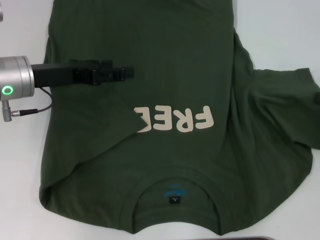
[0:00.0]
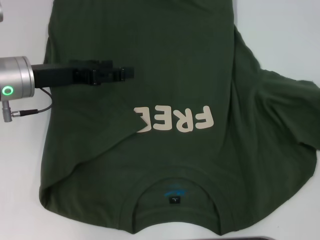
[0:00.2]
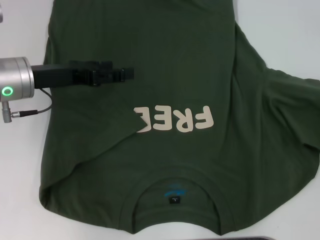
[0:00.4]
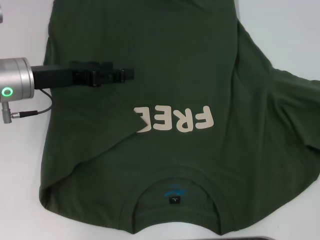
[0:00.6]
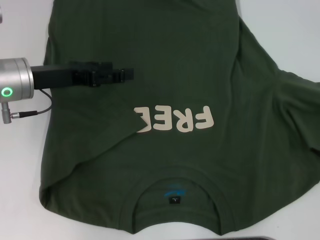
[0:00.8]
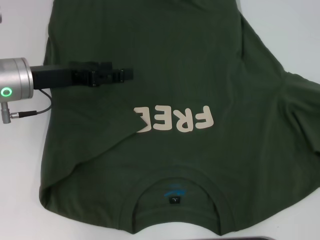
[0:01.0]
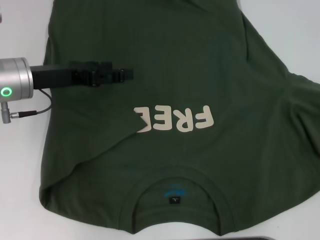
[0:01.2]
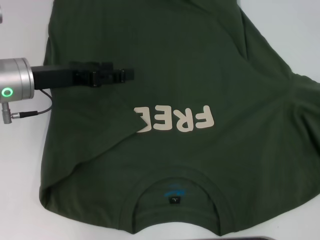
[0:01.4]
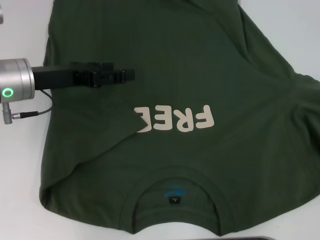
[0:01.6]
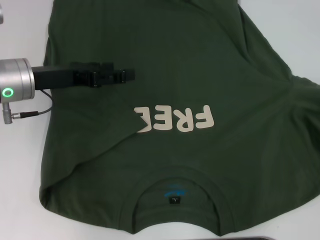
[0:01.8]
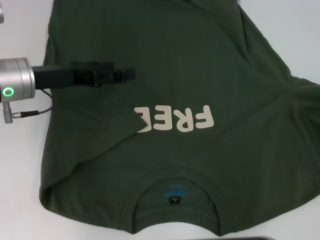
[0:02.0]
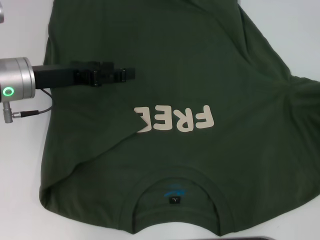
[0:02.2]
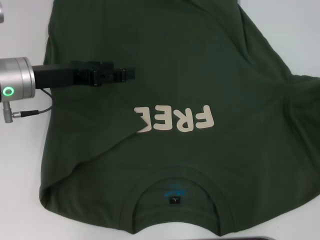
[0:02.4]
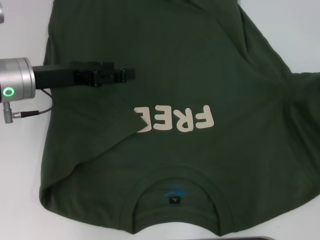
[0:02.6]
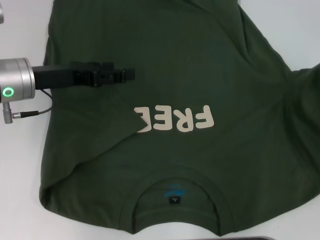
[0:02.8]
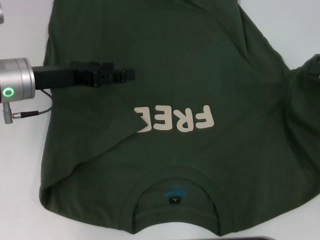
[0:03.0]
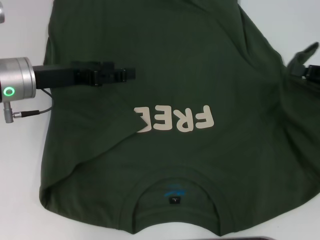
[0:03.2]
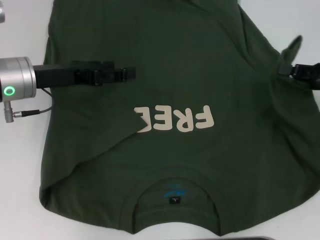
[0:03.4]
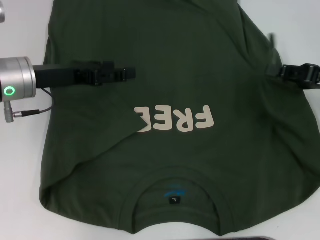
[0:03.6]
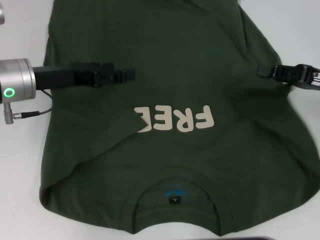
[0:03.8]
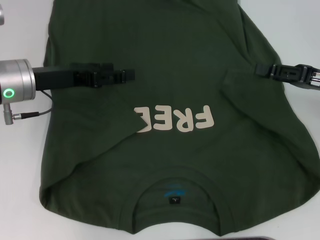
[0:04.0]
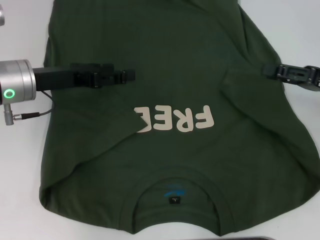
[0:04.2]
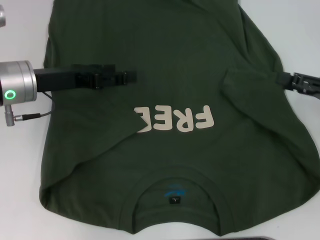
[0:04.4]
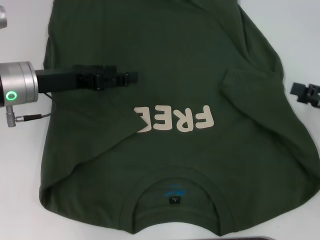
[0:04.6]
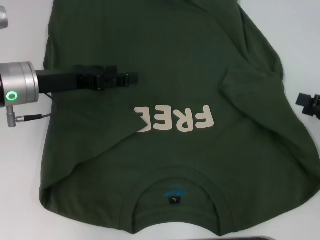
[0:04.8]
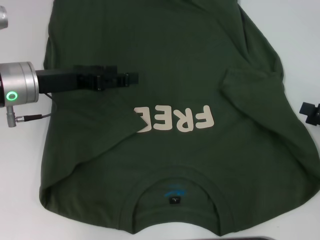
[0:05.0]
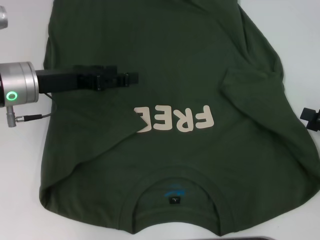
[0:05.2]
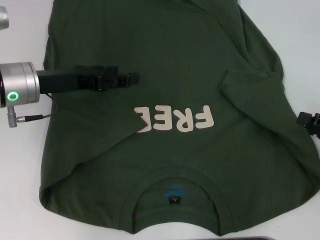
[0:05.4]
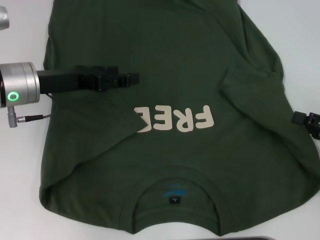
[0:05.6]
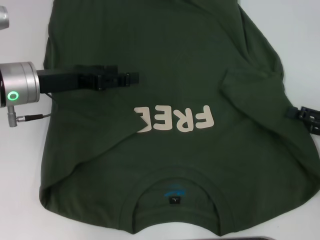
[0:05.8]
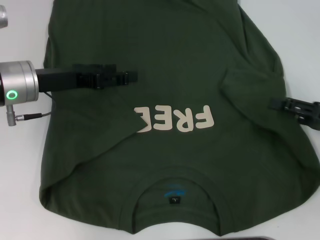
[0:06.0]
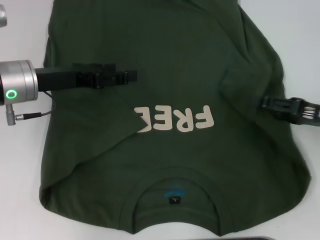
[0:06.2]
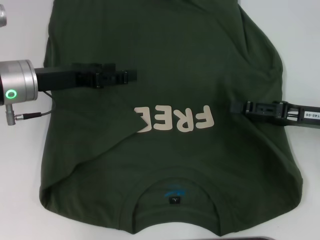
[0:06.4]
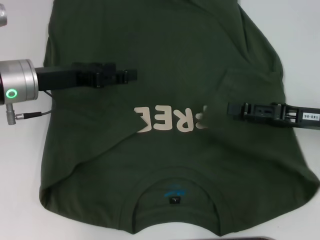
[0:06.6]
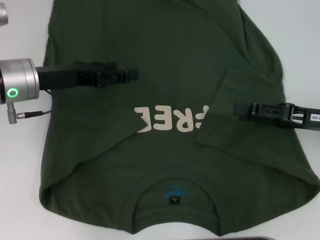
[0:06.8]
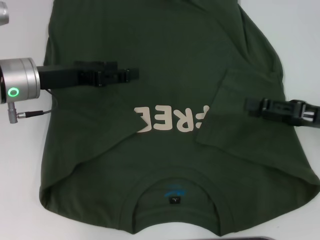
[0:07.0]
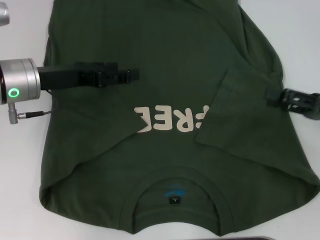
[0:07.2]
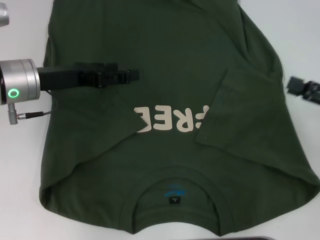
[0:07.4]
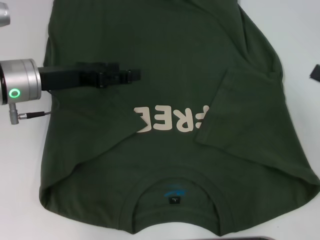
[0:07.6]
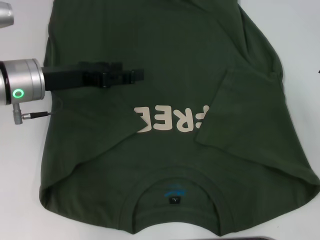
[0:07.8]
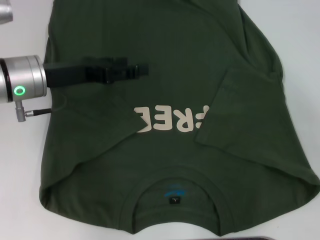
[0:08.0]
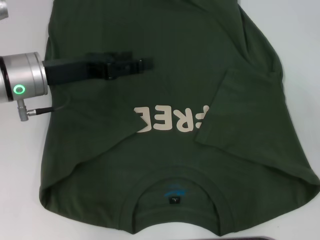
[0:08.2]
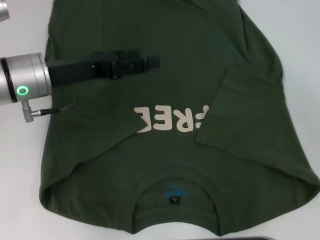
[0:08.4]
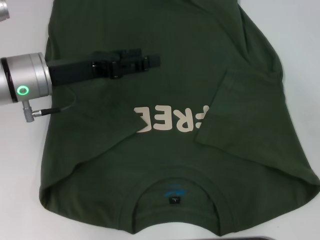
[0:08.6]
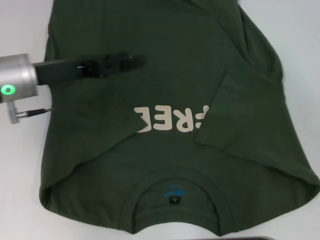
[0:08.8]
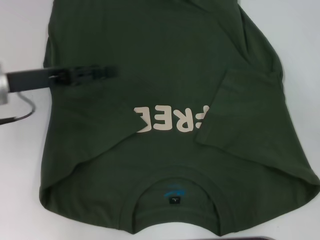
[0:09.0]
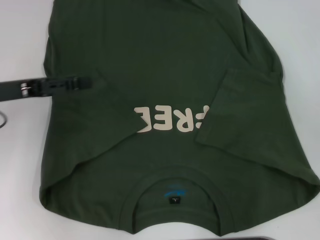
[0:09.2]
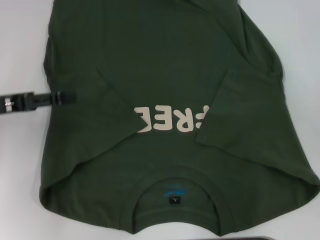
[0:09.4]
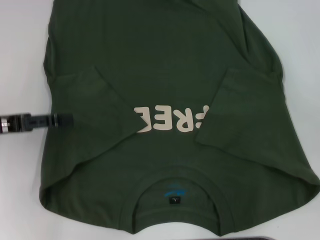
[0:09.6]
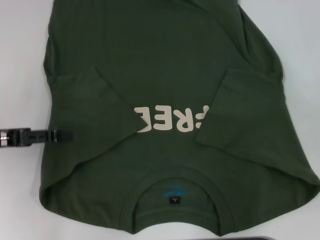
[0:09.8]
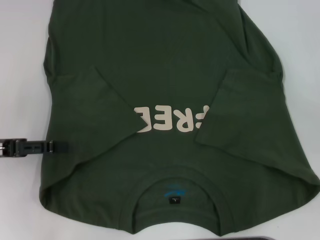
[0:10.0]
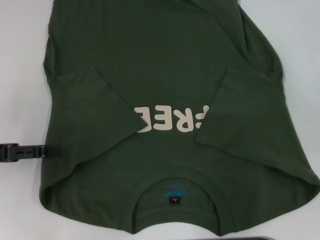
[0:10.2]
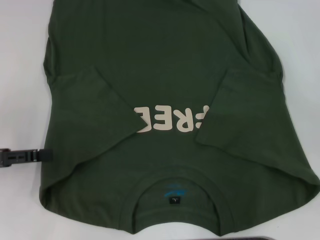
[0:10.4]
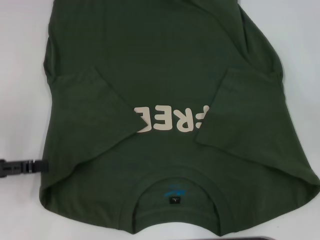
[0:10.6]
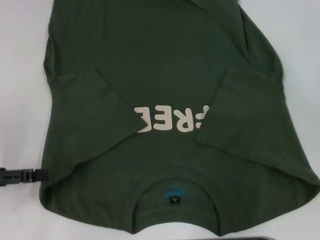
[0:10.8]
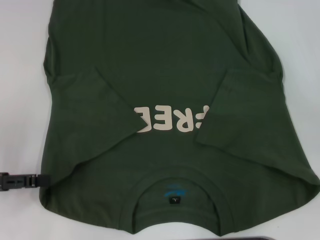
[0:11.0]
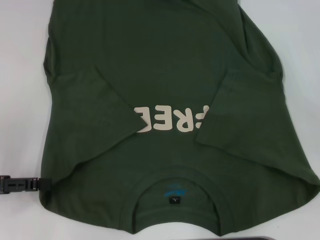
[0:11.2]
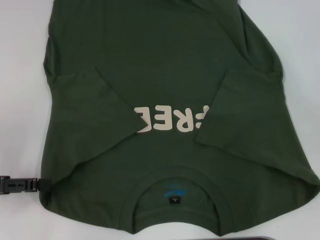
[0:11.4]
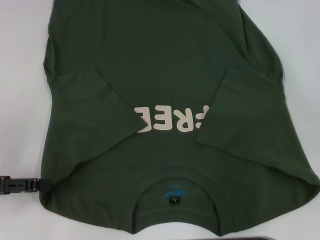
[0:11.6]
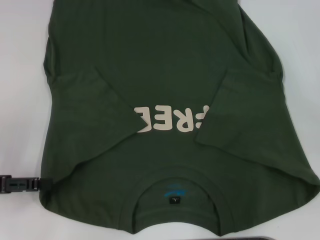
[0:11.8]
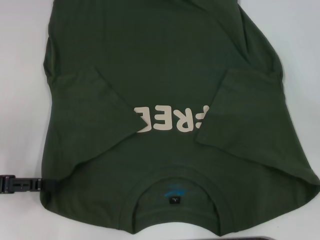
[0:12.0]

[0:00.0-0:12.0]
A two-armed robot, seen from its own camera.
Step, 0:00.0 to 0:06.6: Fold the bottom right sleeve with your right hand.
0:00.0 to 0:01.6: The right gripper shifts by some 5 cm.
0:01.6 to 0:03.0: The right gripper travels to the left and forward by roughly 10 cm.
0:03.0 to 0:04.4: The right gripper opens up.
0:06.0 to 0:07.6: The right gripper travels to the left and back again, about 5 cm each way.
0:07.6 to 0:09.0: The grippers move only a little.
0:09.0 to 0:10.4: The left gripper heads to the left and backward, covering some 15 cm.
0:10.4 to 0:12.0: The grippers move only a little.

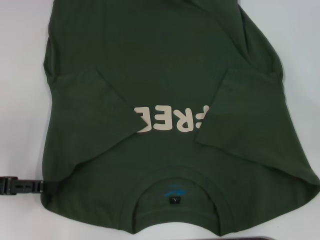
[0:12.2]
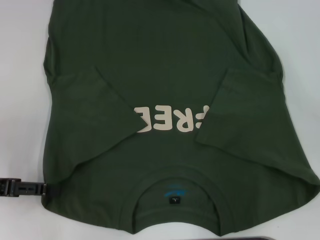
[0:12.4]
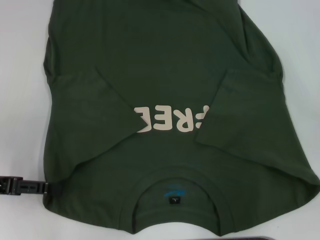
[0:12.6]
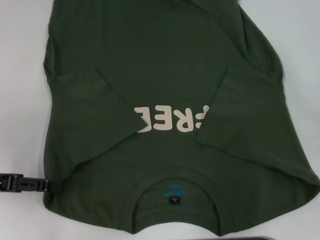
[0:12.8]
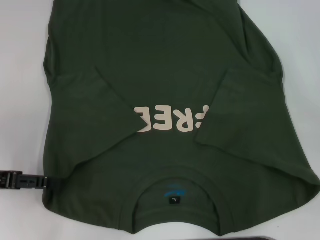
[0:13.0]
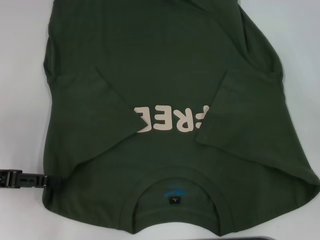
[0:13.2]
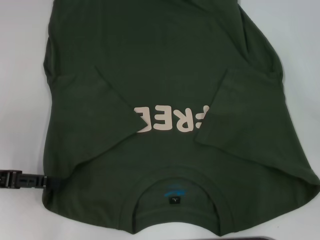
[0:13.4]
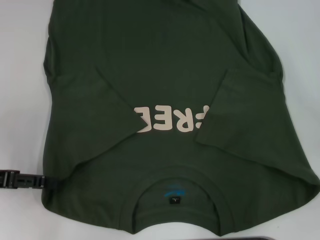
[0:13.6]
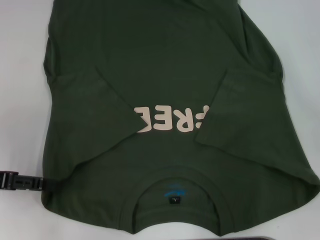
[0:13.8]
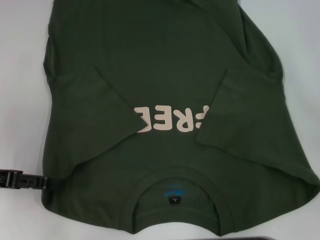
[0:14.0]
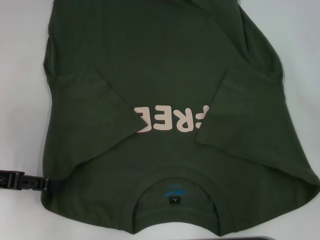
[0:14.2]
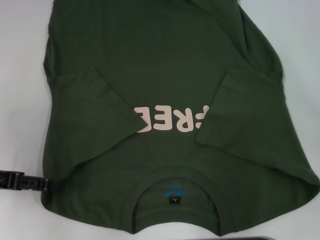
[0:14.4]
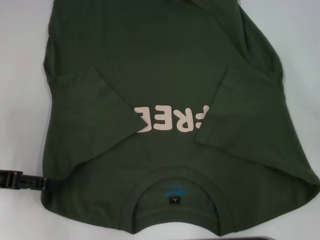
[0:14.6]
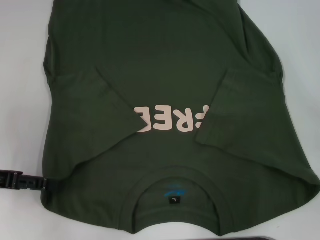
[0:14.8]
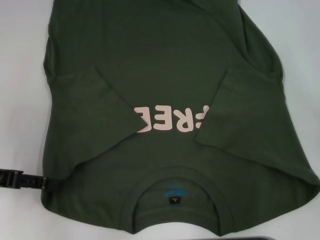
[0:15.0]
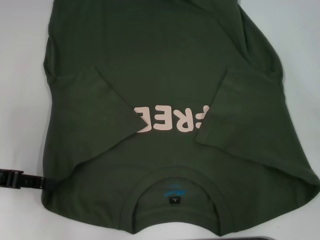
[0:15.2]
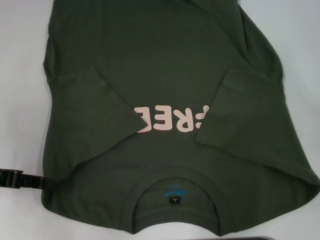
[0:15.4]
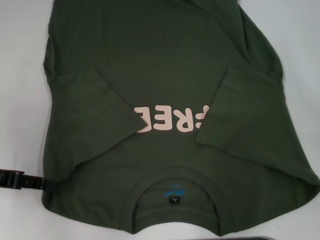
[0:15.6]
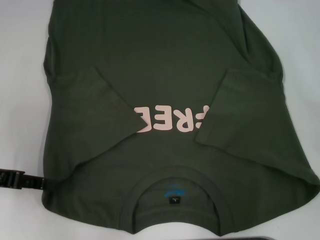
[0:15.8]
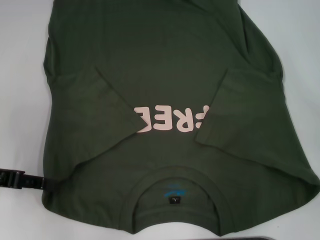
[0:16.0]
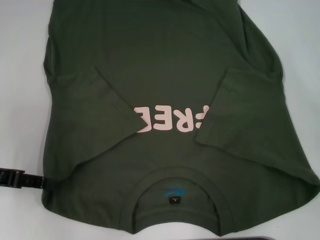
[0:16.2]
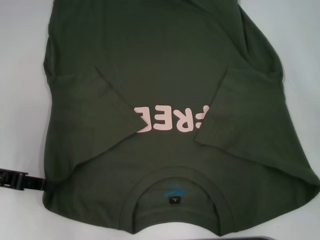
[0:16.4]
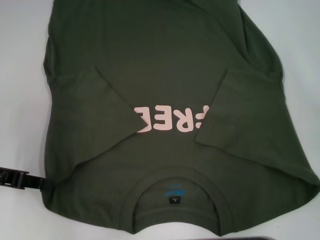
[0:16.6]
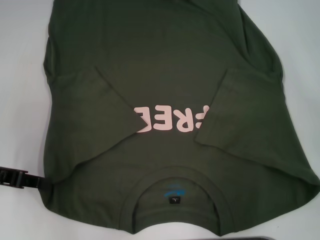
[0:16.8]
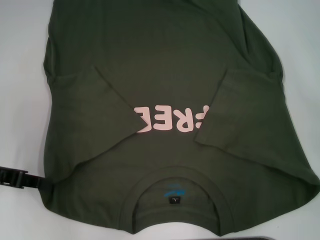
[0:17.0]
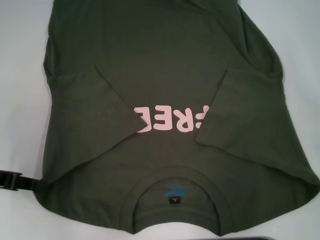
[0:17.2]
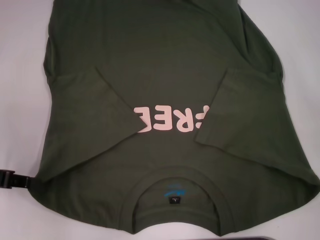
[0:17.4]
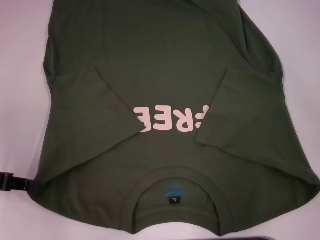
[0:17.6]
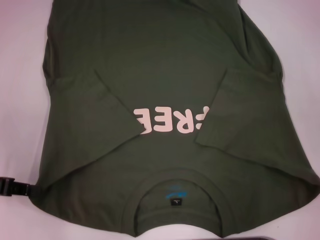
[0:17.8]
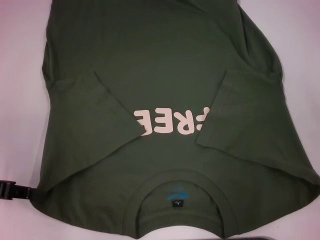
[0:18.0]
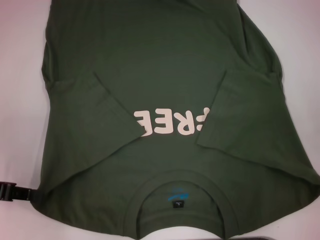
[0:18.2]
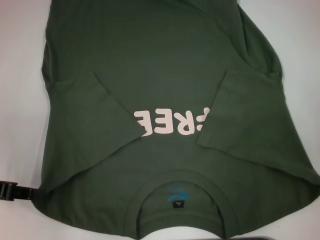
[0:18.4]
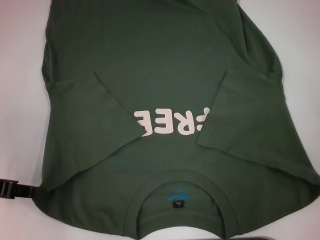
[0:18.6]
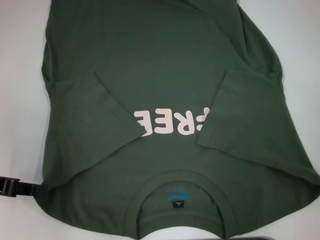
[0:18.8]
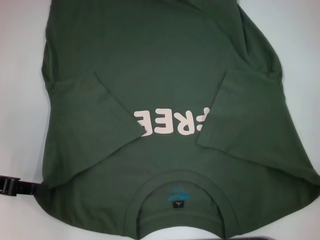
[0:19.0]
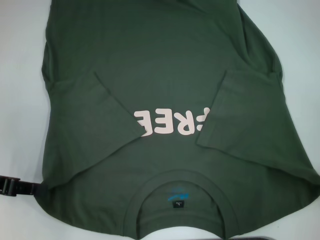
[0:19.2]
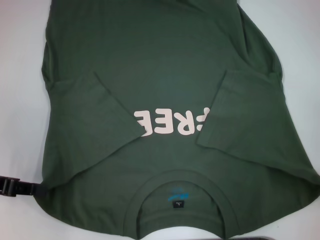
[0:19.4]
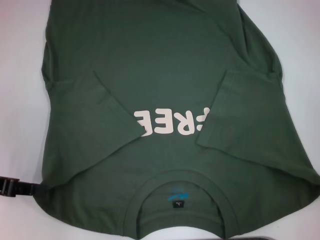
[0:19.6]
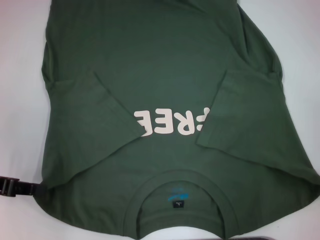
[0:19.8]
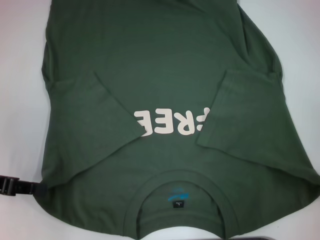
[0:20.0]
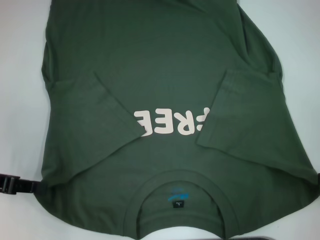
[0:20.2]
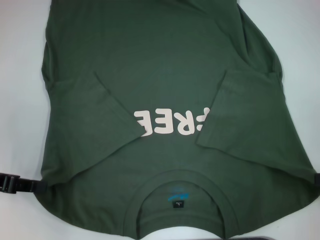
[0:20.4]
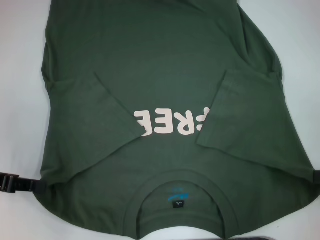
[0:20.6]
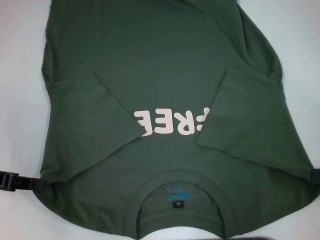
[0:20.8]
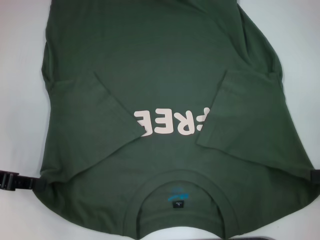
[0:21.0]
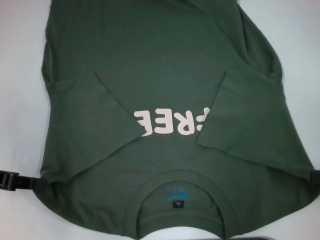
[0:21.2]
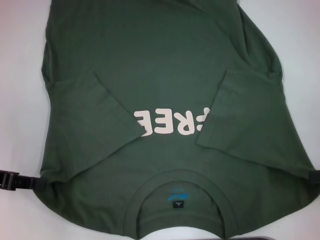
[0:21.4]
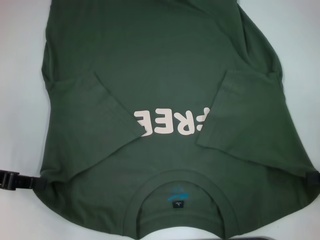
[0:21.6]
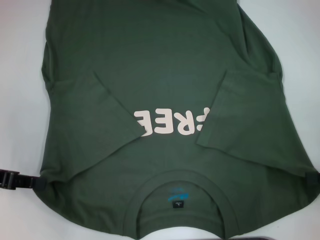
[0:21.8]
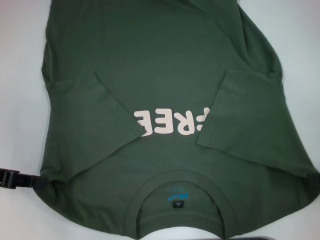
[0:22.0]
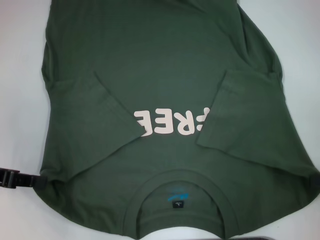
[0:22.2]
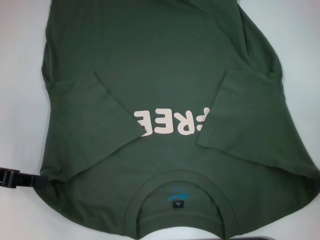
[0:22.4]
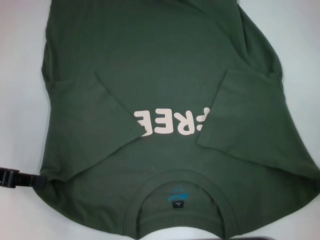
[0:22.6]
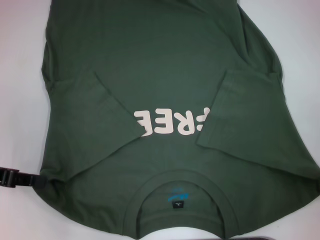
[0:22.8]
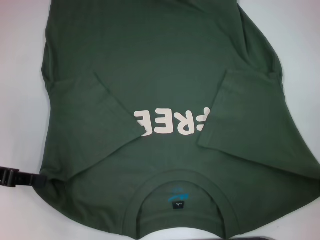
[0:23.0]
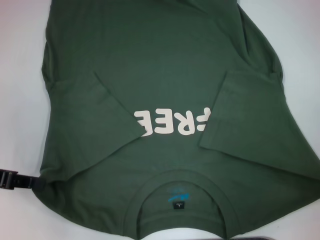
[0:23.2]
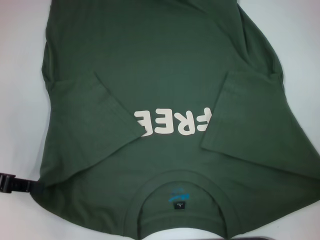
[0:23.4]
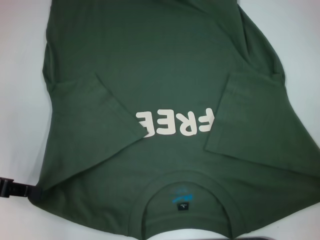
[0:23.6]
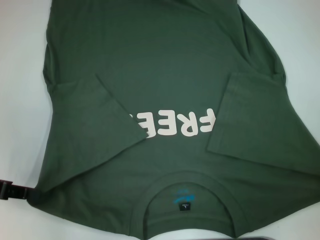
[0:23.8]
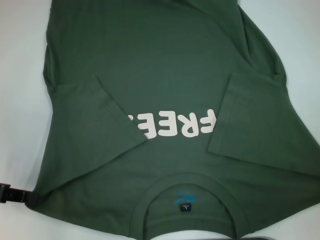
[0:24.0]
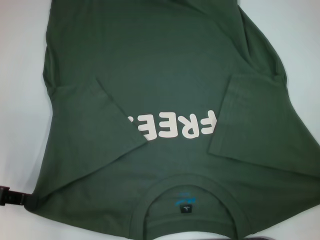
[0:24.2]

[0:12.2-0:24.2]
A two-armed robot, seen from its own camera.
Step, 0:12.2 to 0:17.8: Grab the bottom left corner with your left hand.
0:13.8 to 0:15.2: Both grippers stay about where they are.
0:16.6 to 0:18.2: The right gripper shifts about 5 cm backward.
0:18.2 to 0:19.8: The right gripper ends up about 5 cm from where it was.
0:19.8 to 0:21.2: There are only small adjustments of the grippers.
0:22.6 to 0:24.2: The grippers make only small movements.
